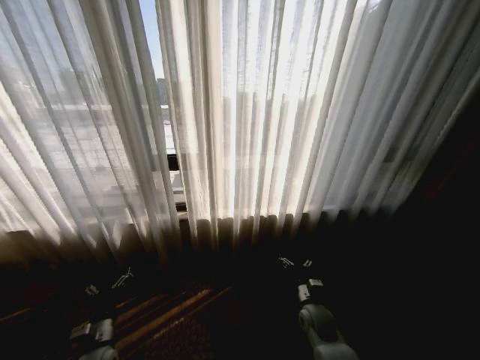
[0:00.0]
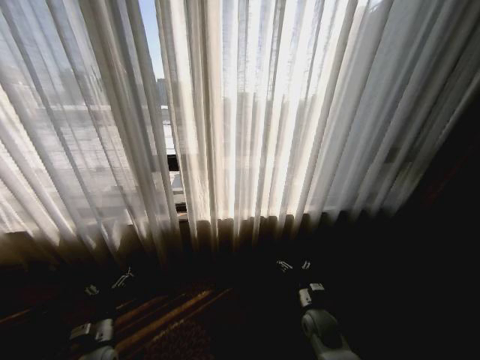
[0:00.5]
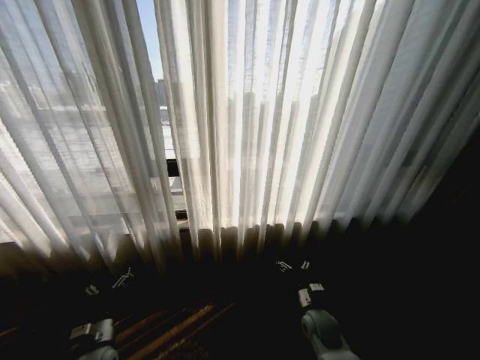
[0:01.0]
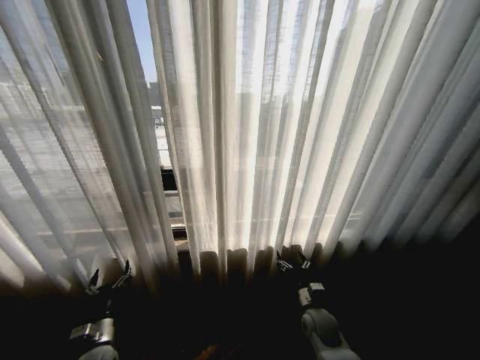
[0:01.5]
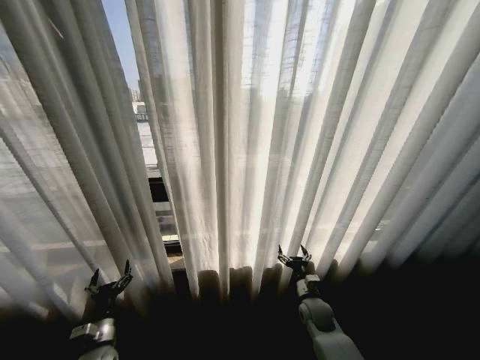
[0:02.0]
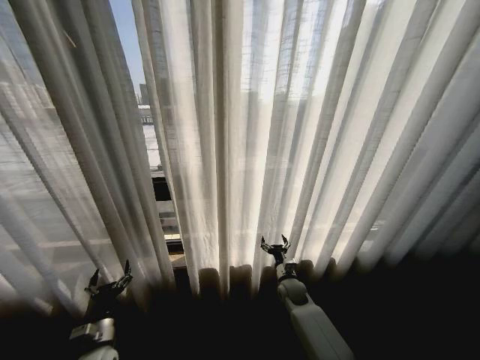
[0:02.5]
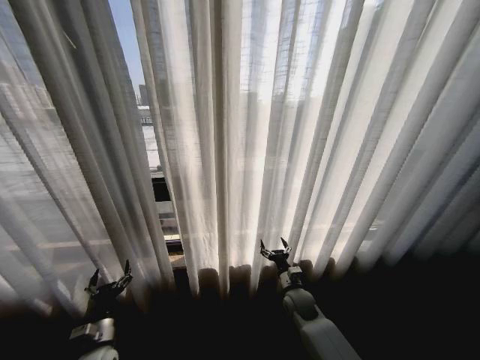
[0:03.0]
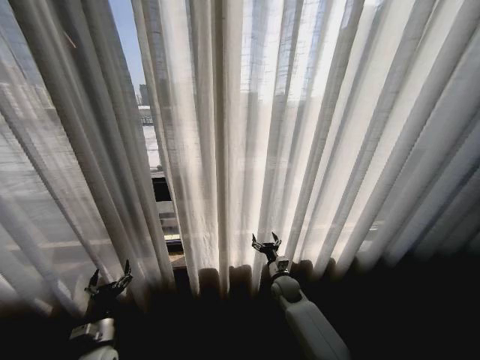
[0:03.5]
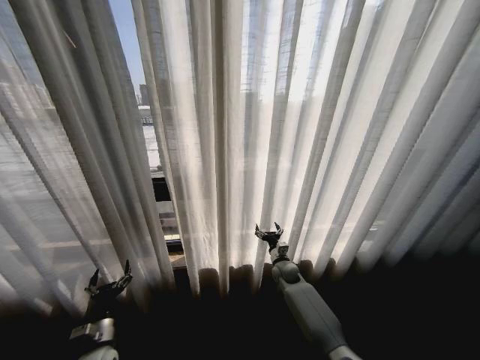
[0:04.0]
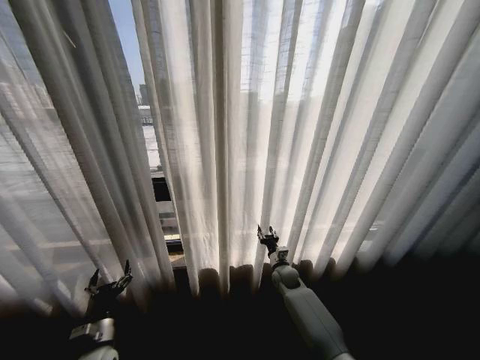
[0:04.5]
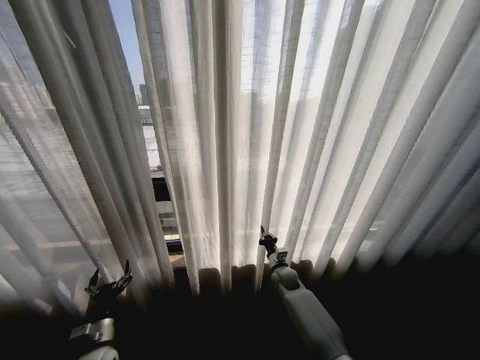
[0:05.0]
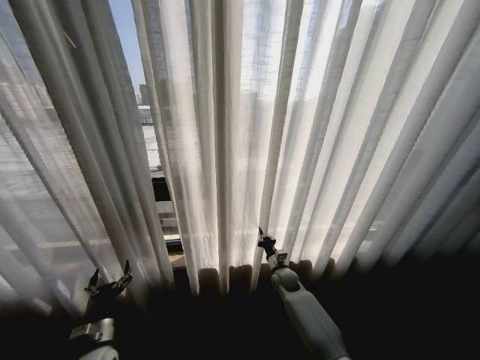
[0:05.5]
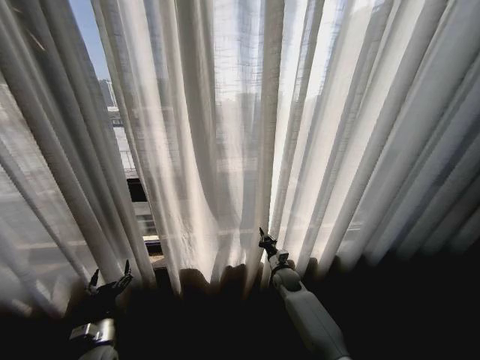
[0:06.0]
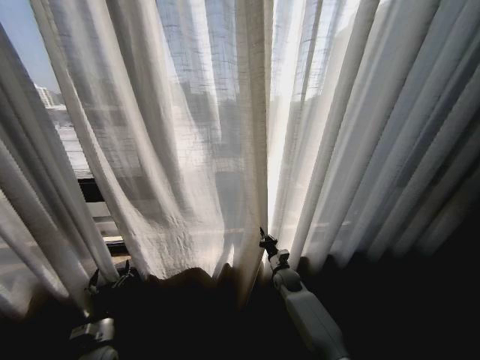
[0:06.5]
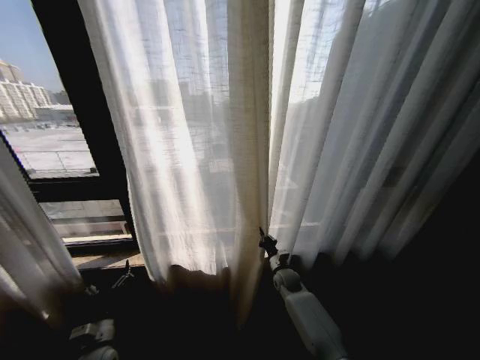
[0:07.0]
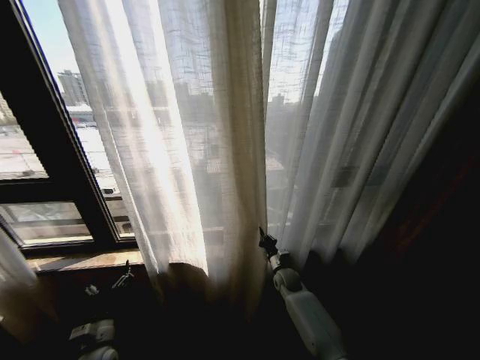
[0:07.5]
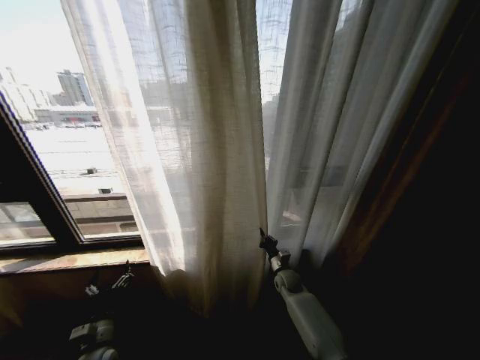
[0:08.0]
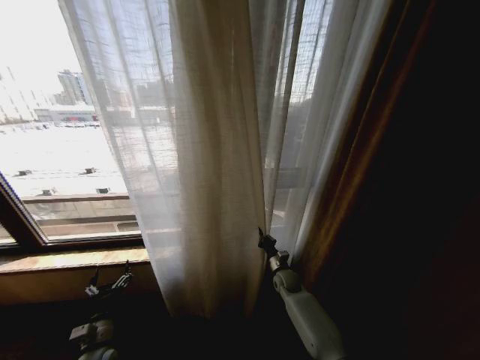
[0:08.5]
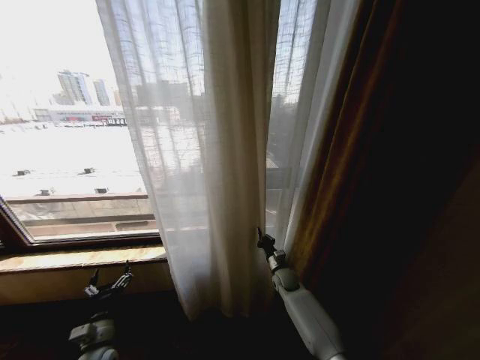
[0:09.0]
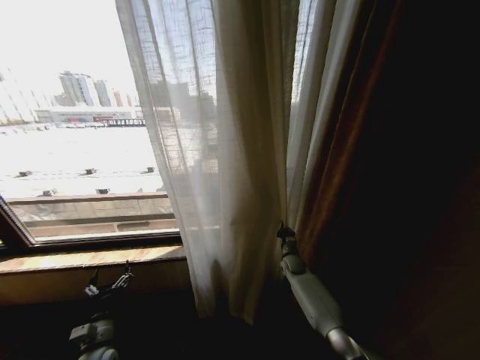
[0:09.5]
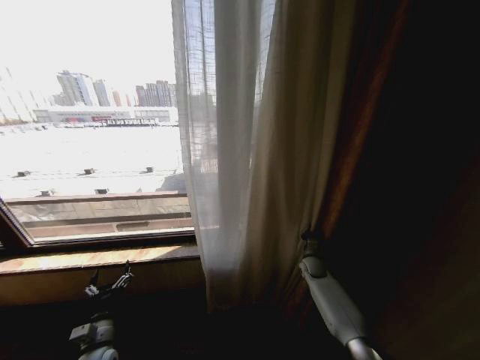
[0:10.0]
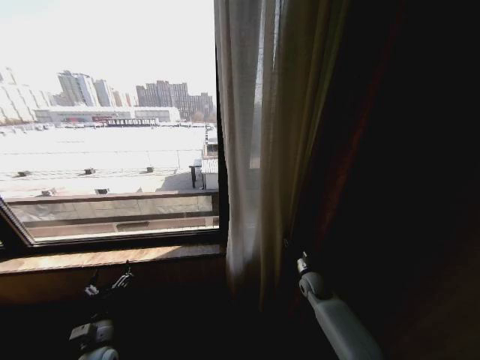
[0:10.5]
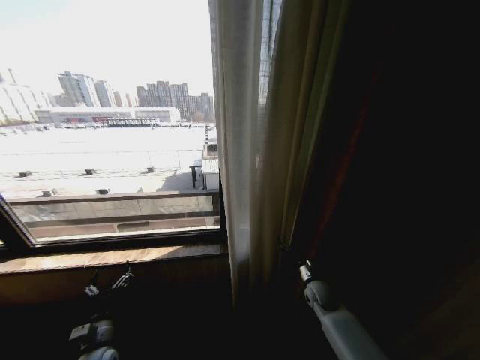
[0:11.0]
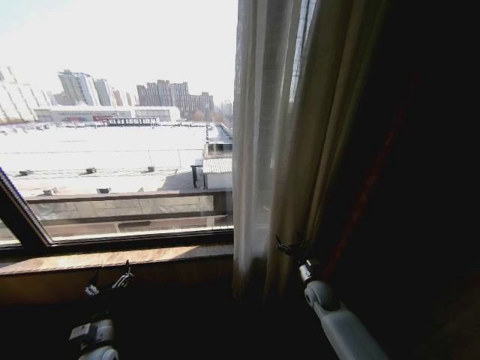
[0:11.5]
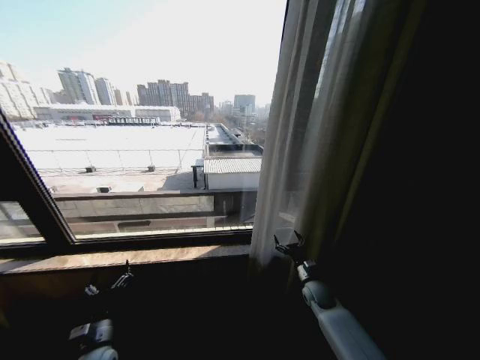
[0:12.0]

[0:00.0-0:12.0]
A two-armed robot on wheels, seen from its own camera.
Task of the whole recording: Open the curtains by pulling them apart, changing their state from closed to fully open.
0:02.0 to 0:04.0: The right gripper goes forward and backward, about 15 cm each way, reversing 2 times.
0:04.0 to 0:06.0: The right gripper closes its fingers.
0:08.0 to 0:10.0: The right gripper is displaced to the right by about 10 cm.
0:10.0 to 0:12.0: The right gripper is displaced backward by approximately 10 cm, and opens its fingers.

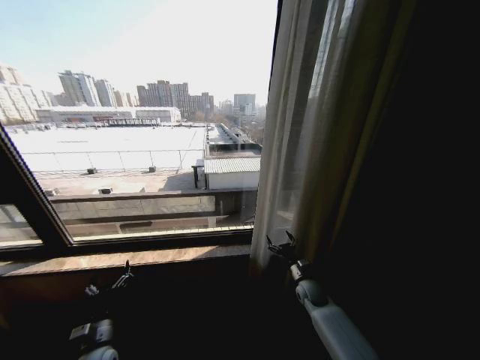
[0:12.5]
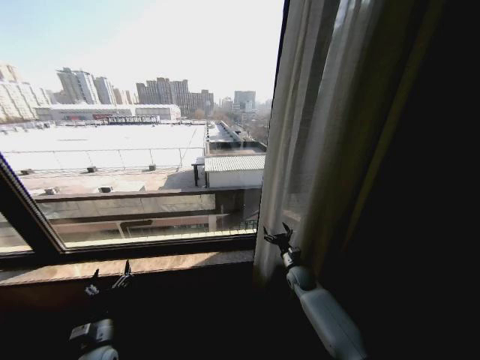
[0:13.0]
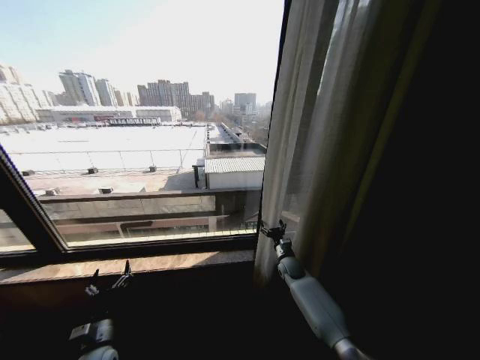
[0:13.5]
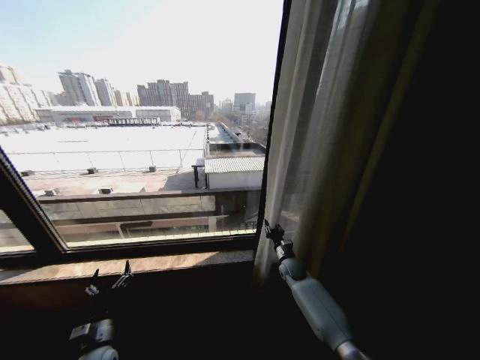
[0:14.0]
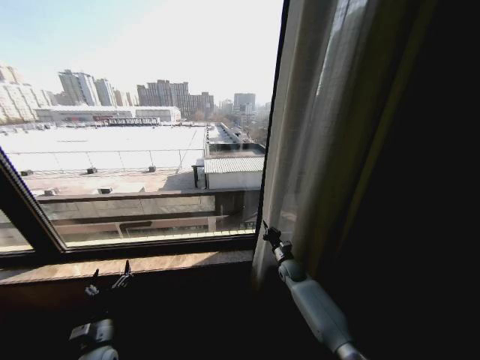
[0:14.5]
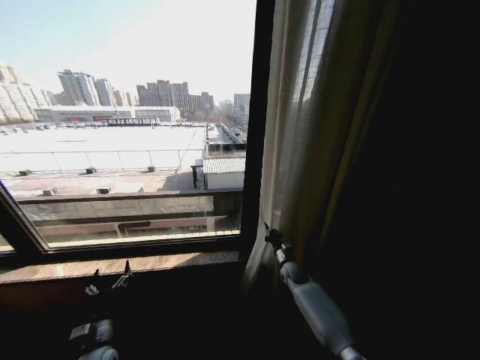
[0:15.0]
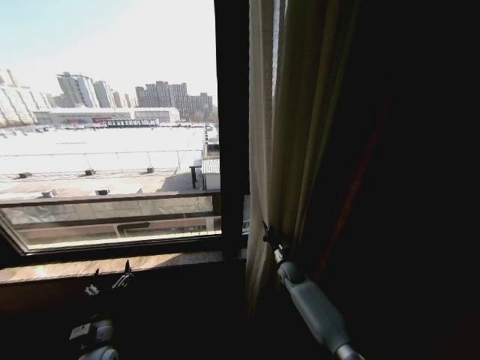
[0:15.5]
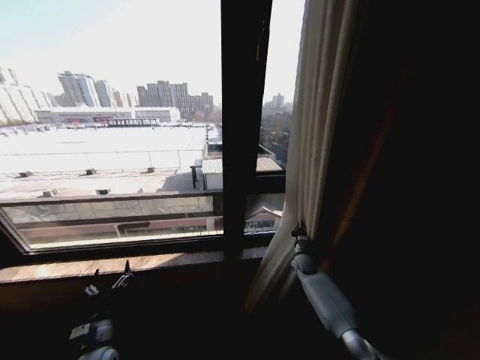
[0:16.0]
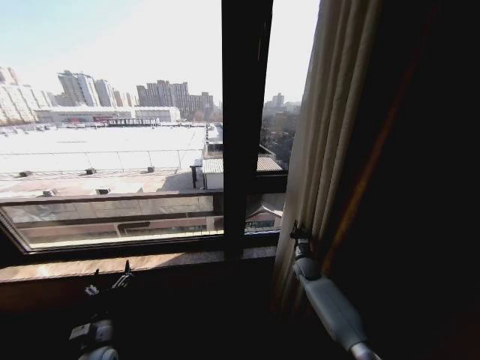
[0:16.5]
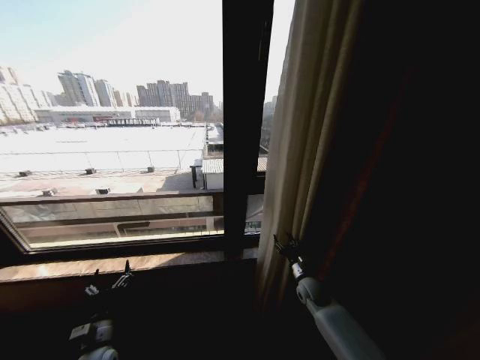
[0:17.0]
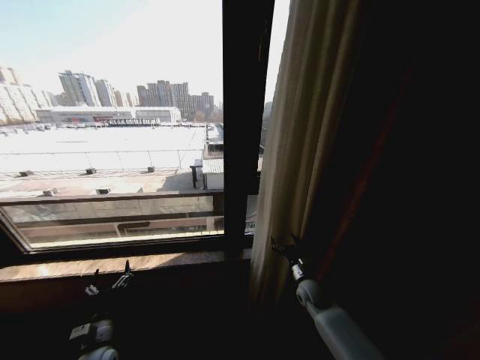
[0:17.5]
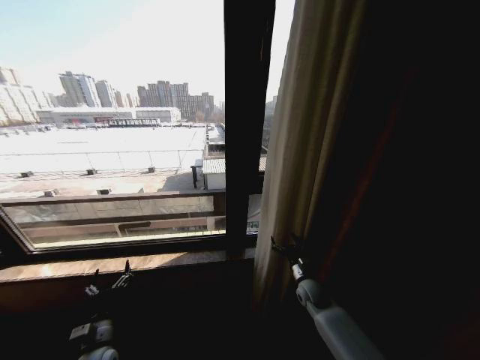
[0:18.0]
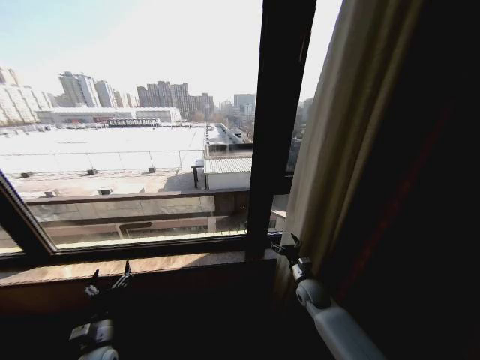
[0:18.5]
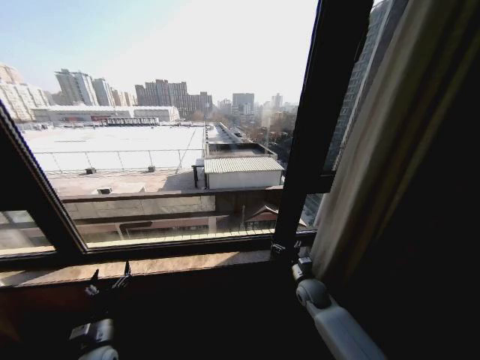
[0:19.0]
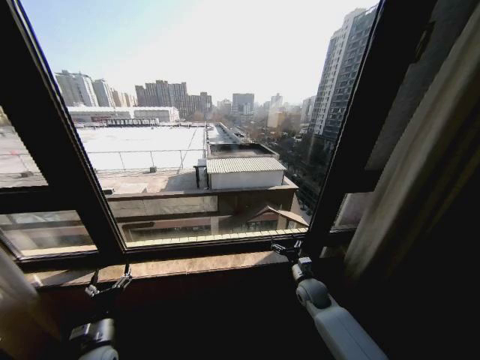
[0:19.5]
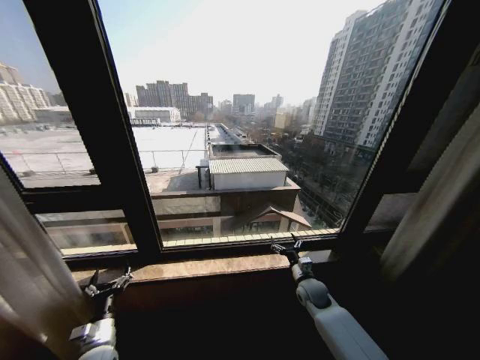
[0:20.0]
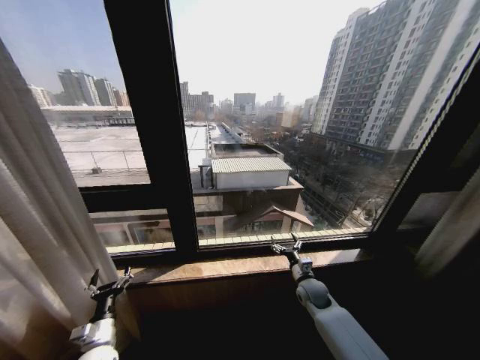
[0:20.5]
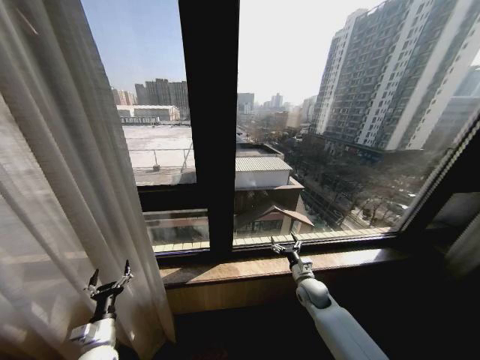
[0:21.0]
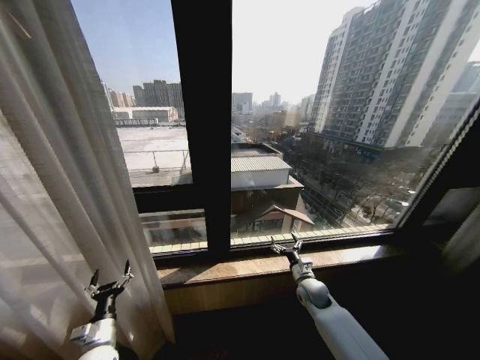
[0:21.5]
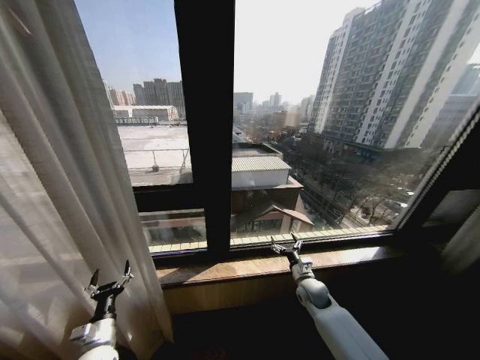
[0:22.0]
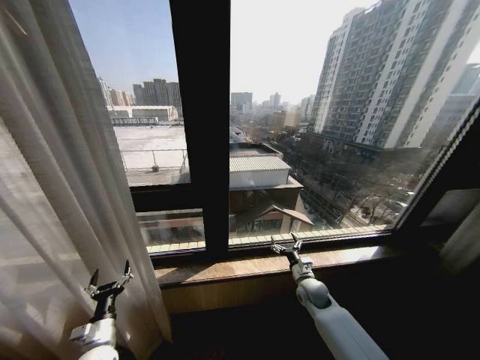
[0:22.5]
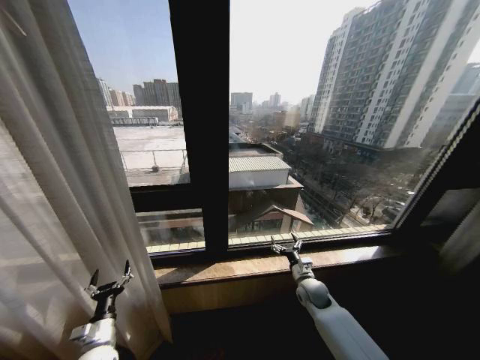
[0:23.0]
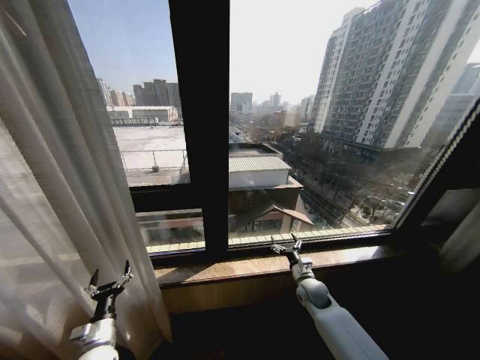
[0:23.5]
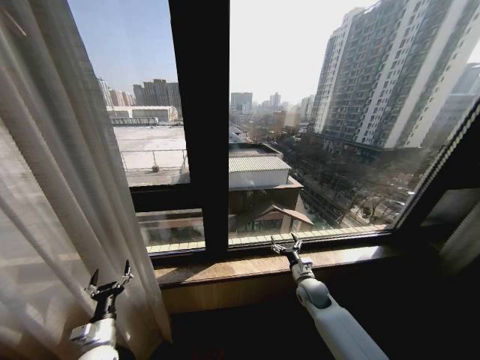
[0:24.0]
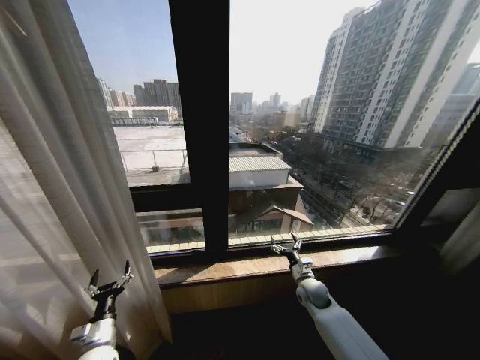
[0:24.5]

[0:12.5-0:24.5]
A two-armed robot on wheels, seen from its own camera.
Task of the whole recording: Open the curtains by pulling them apart, changing their state from closed to fully open.
0:12.5 to 0:14.5: The right gripper goes roughly 10 cm forward, and closes.
0:14.5 to 0:16.5: The right gripper moves to the right, about 5 cm.
0:16.5 to 0:18.5: The right gripper travels backward by approximately 10 cm, and opens up.
0:22.5 to 0:24.5: Neither gripper changes place.

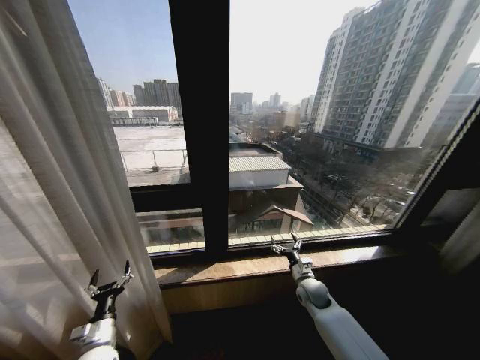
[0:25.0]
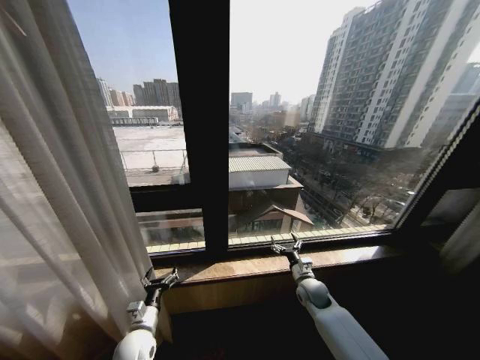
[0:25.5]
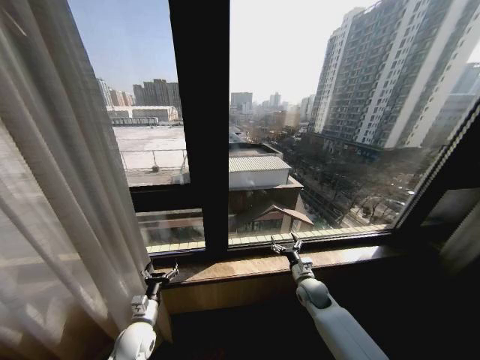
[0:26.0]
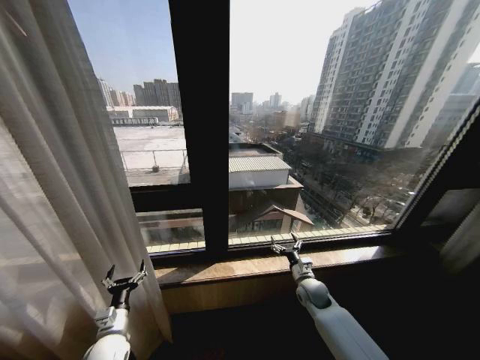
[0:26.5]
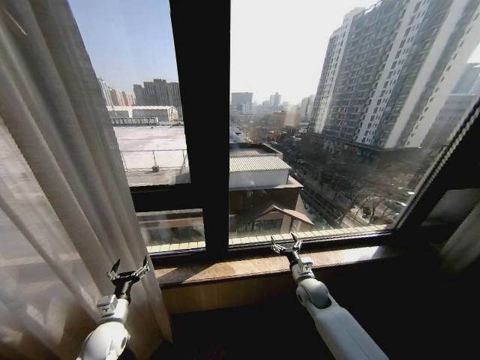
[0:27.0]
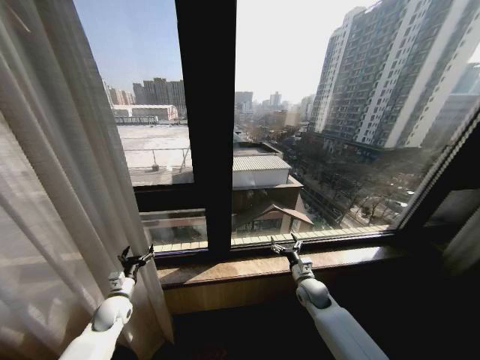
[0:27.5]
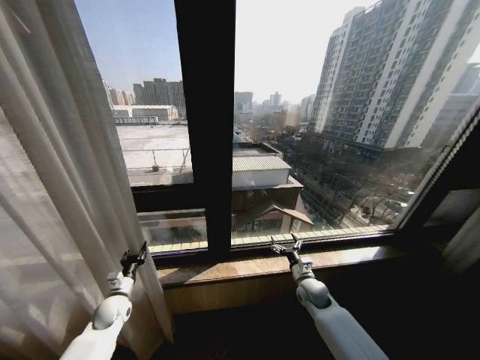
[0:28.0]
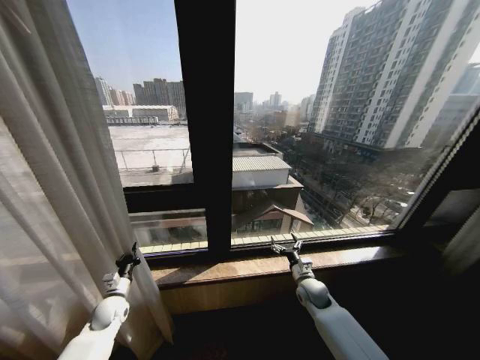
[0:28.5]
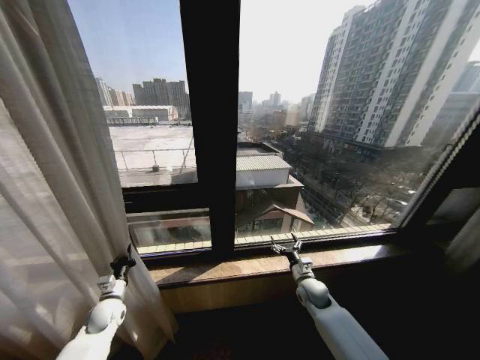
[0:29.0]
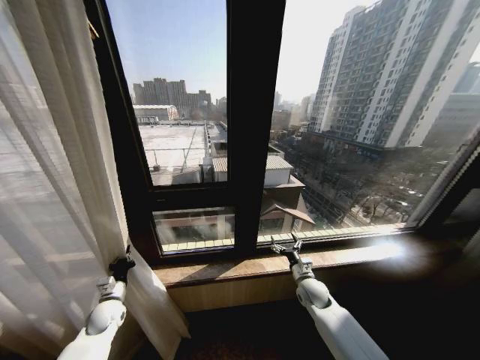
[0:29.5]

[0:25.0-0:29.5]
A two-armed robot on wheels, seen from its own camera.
Task of the whole recording: Open the curtains by pulling them apart, changing their state from closed to fully open.
0:25.0 to 0:27.0: The left gripper moves forward, approximately 5 cm, and moves approximately 10 cm to the right and comes back.
0:27.0 to 0:29.5: The left gripper moves forward, some 5 cm, and closes.
